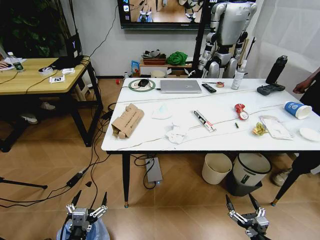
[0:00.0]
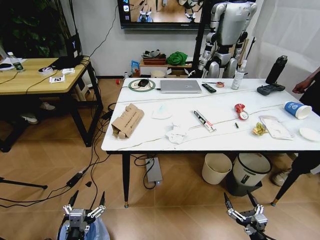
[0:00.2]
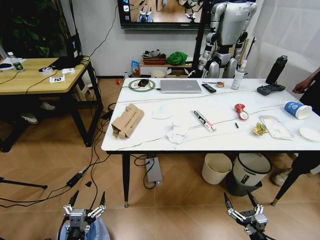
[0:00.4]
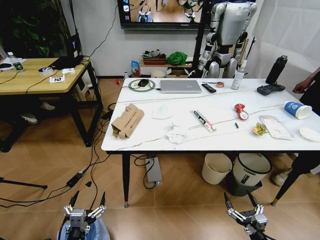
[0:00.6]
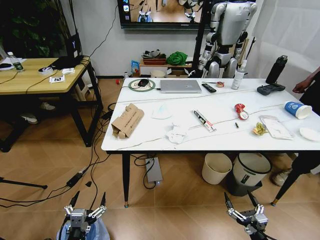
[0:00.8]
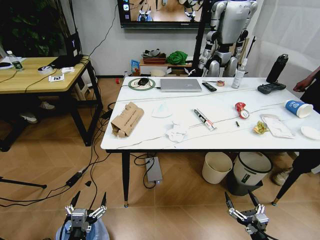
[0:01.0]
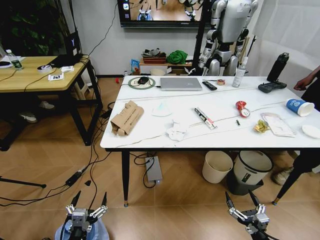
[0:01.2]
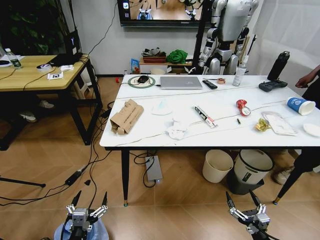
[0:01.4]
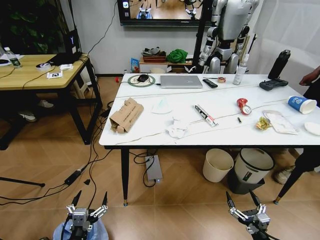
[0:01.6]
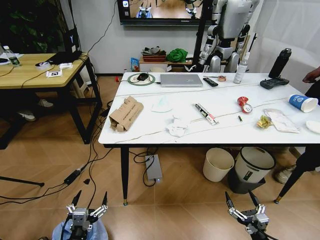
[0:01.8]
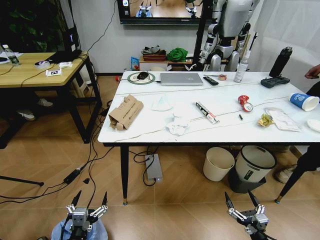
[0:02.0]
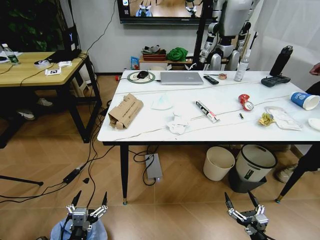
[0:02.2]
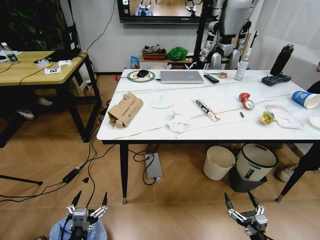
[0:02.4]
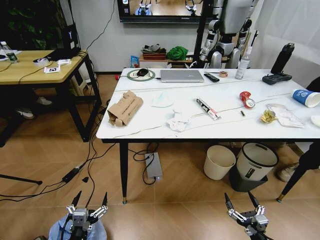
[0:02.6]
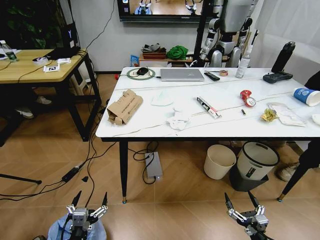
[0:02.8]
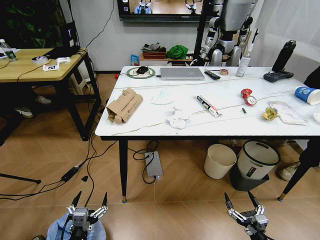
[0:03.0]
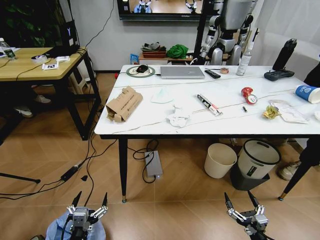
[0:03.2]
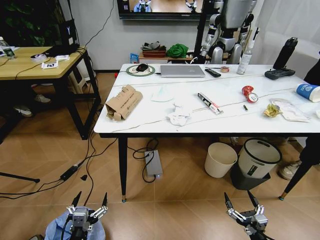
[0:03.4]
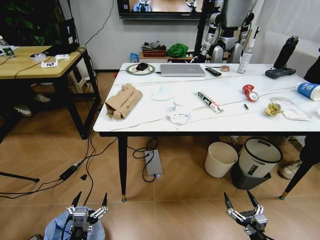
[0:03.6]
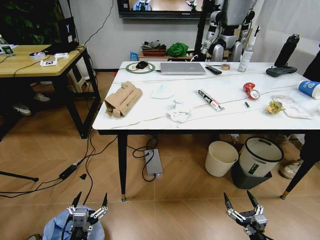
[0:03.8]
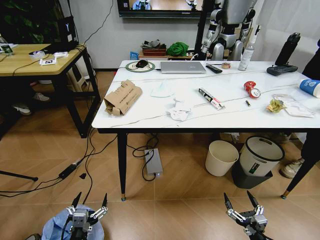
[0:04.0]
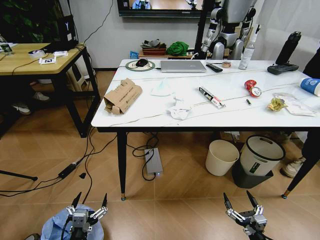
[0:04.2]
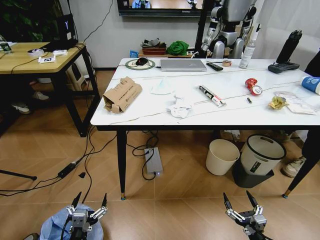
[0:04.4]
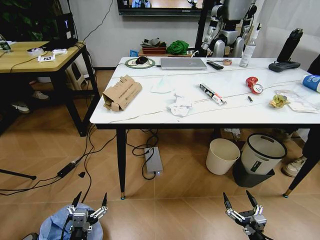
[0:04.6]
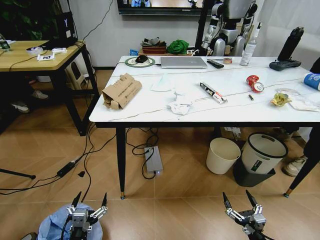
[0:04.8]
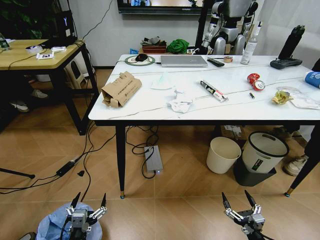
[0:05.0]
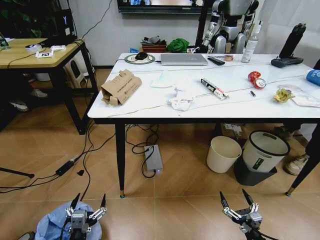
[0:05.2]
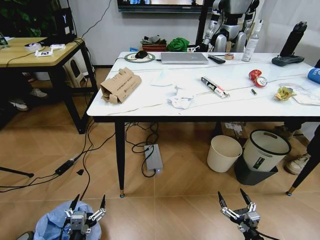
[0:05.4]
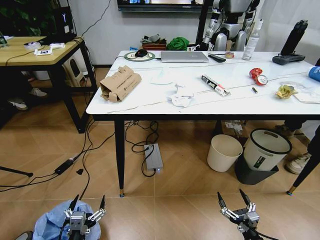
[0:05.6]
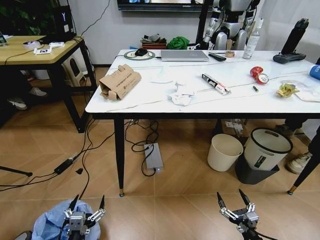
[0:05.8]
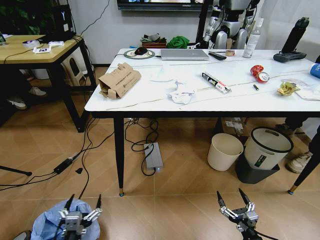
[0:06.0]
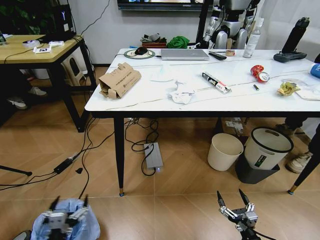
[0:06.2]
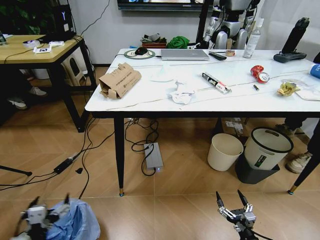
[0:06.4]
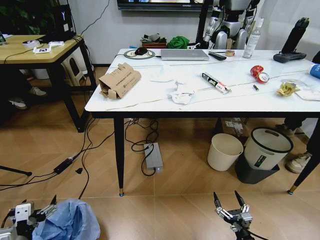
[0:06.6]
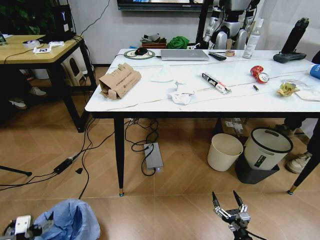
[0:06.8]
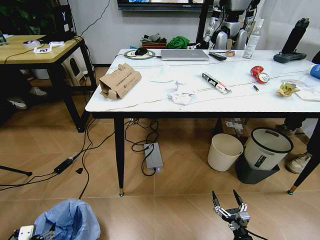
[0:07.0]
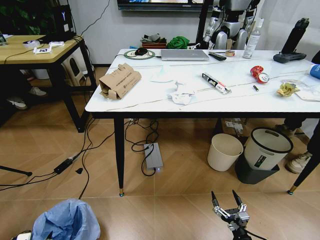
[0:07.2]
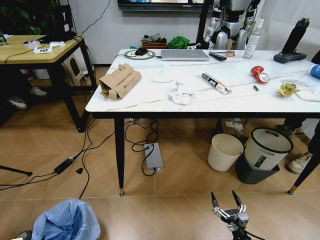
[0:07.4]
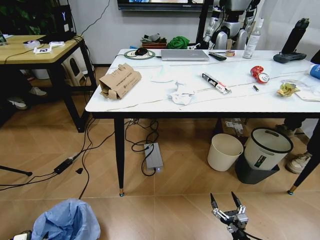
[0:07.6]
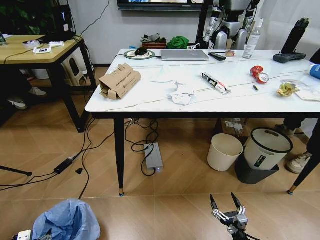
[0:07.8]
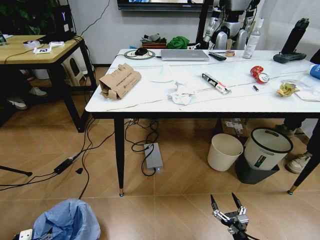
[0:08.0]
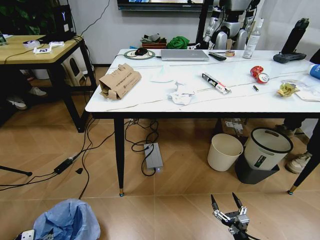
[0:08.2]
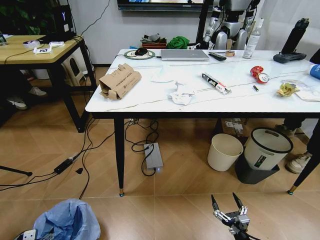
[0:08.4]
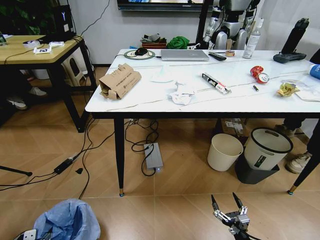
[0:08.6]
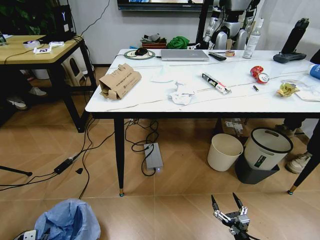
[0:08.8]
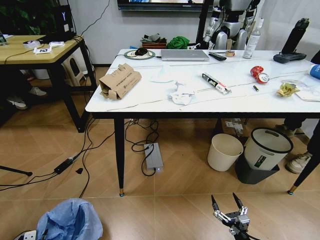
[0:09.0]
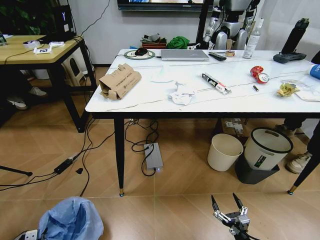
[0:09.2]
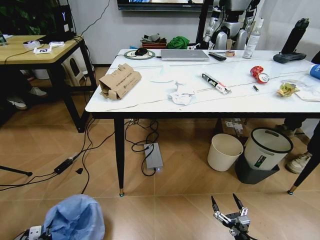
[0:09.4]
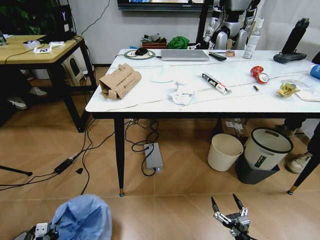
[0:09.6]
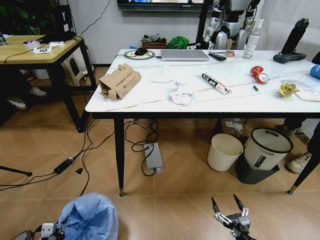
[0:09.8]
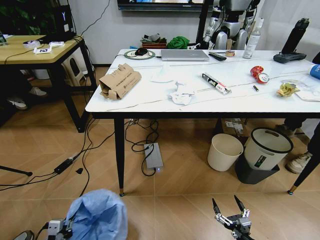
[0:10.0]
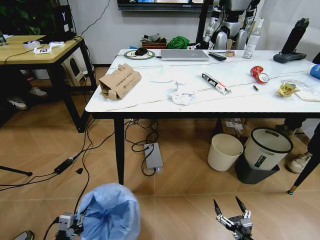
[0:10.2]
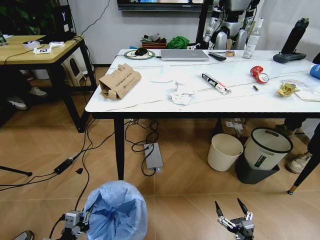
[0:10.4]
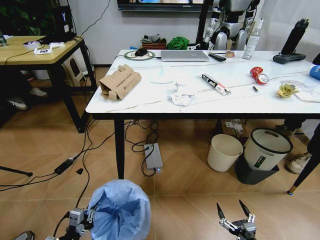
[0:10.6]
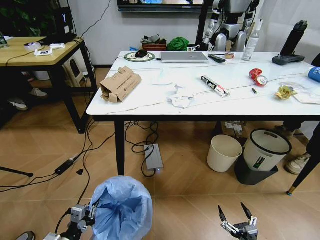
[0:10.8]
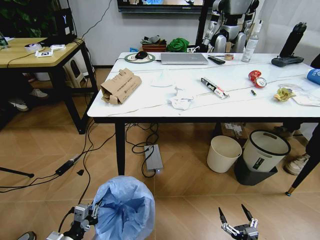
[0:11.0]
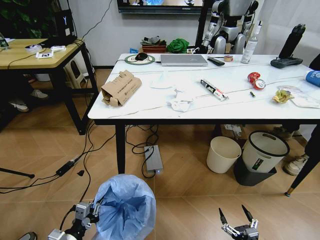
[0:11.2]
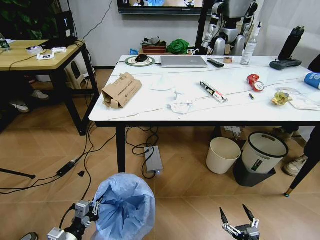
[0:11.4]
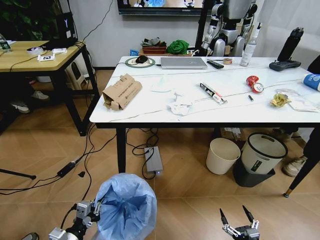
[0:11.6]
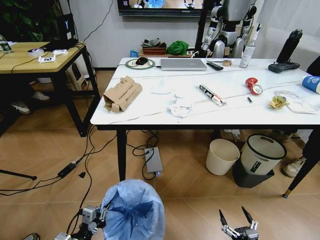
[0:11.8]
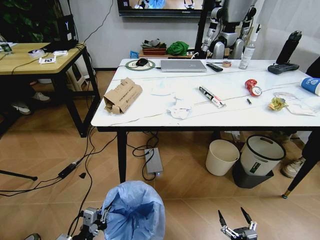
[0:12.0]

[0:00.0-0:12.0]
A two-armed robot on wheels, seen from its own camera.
Task of the whole recording: Pick up the trash bin and place the trash from the table into it.
0:06.0 to 0:07.6: The left gripper is displaced to the left by about 20 cm.
0:07.6 to 0:09.0: The left gripper travels downward by roughly 5 cm, and closes.
0:09.0 to 0:10.4: The left gripper goes roughly 15 cm to the right and upward.

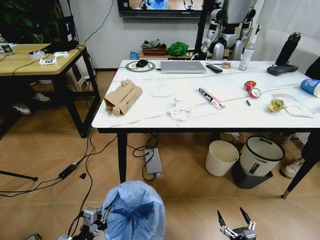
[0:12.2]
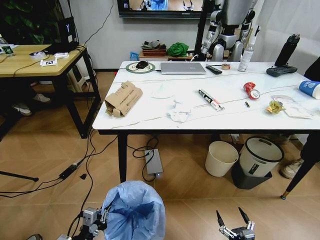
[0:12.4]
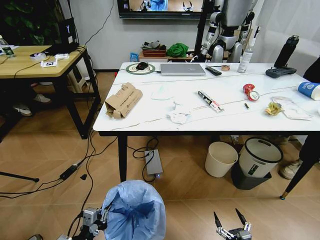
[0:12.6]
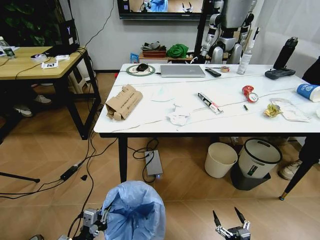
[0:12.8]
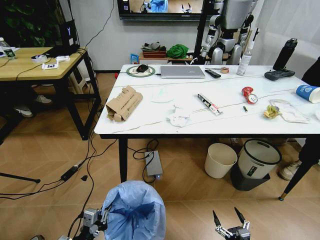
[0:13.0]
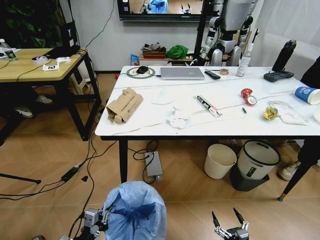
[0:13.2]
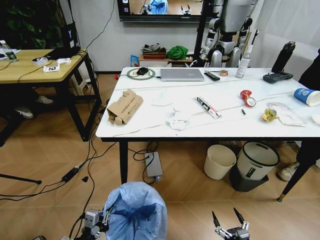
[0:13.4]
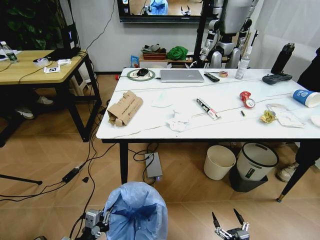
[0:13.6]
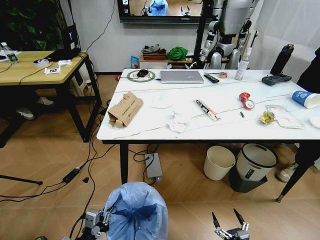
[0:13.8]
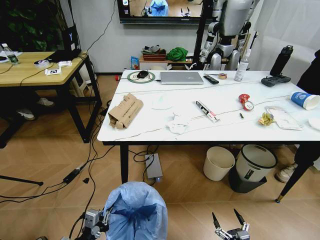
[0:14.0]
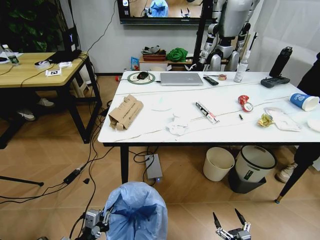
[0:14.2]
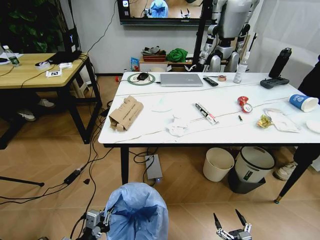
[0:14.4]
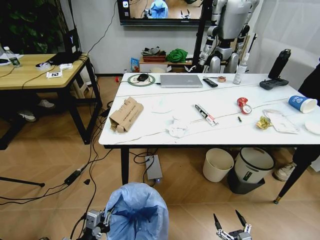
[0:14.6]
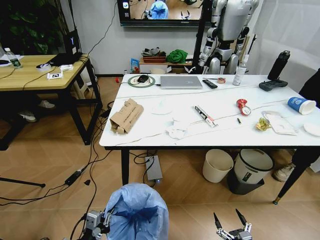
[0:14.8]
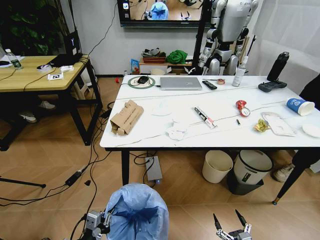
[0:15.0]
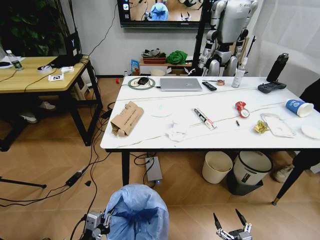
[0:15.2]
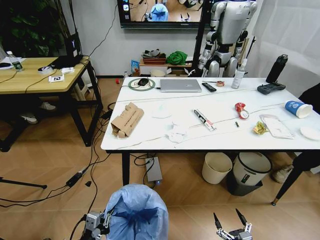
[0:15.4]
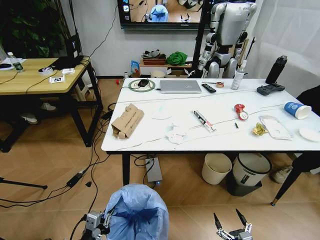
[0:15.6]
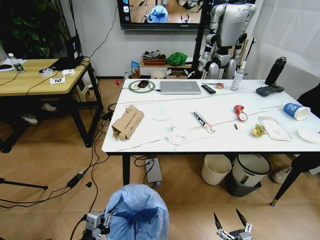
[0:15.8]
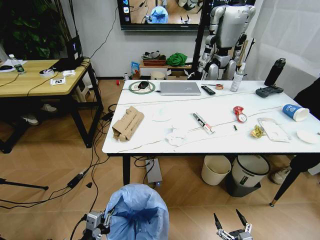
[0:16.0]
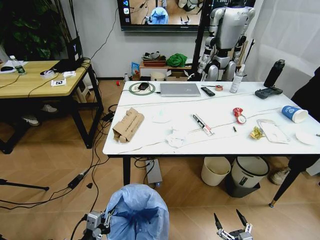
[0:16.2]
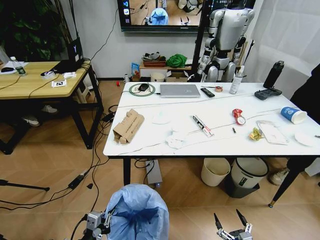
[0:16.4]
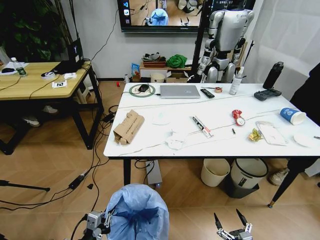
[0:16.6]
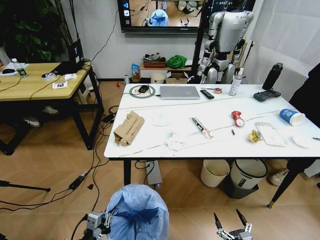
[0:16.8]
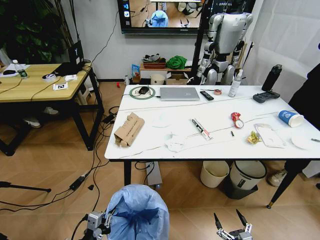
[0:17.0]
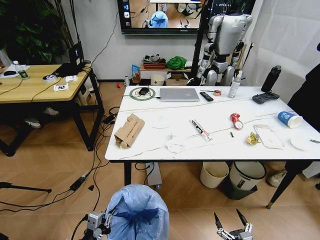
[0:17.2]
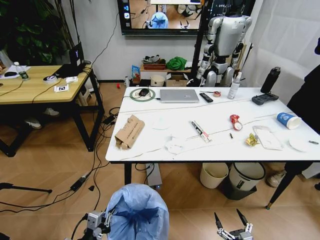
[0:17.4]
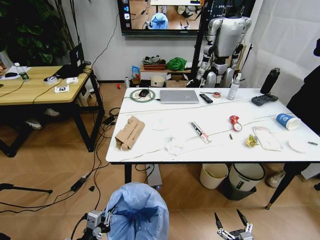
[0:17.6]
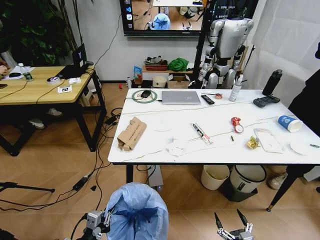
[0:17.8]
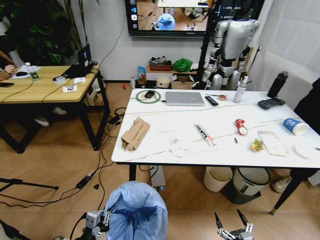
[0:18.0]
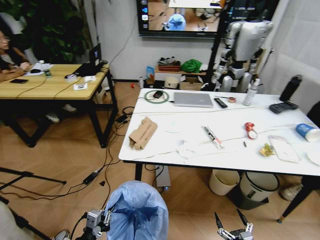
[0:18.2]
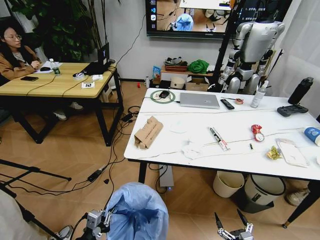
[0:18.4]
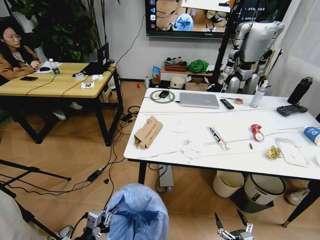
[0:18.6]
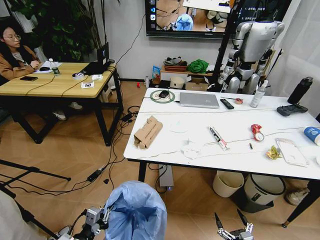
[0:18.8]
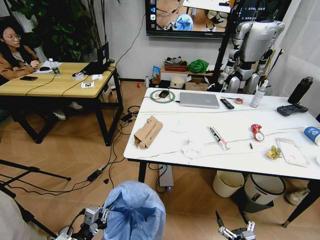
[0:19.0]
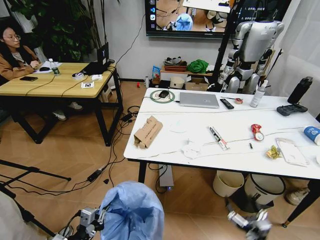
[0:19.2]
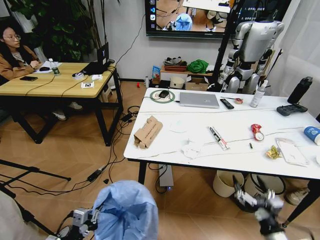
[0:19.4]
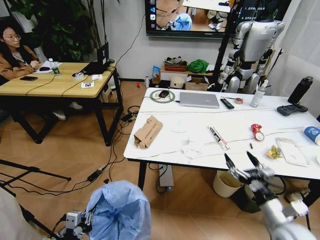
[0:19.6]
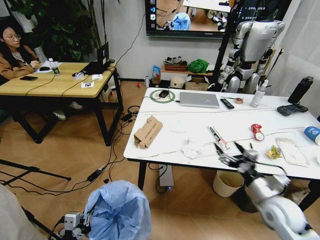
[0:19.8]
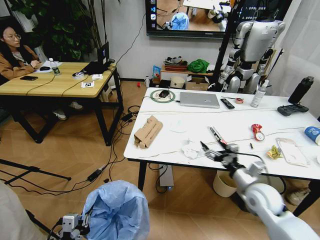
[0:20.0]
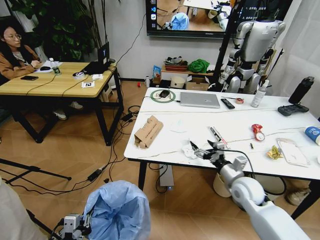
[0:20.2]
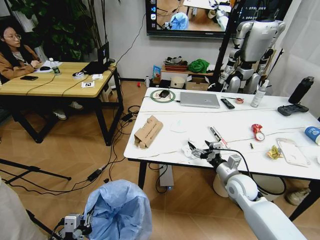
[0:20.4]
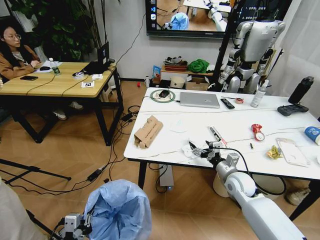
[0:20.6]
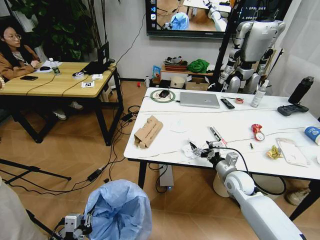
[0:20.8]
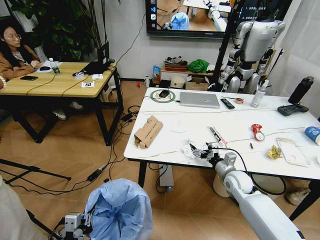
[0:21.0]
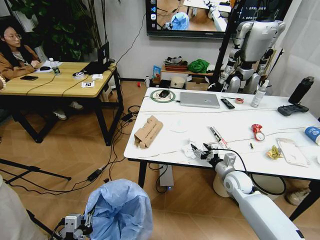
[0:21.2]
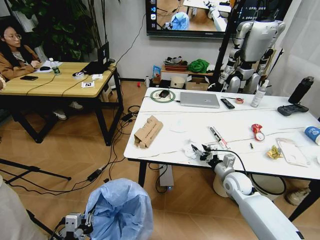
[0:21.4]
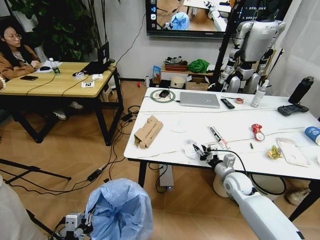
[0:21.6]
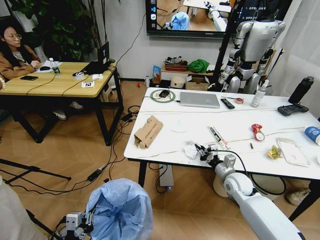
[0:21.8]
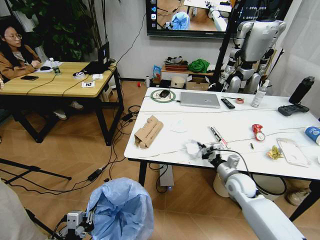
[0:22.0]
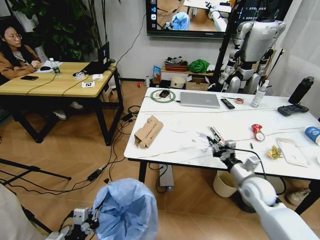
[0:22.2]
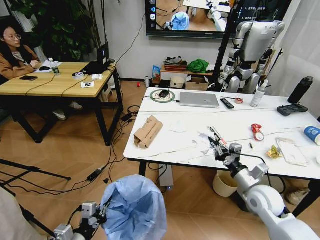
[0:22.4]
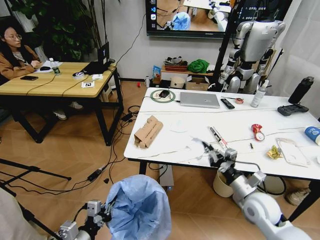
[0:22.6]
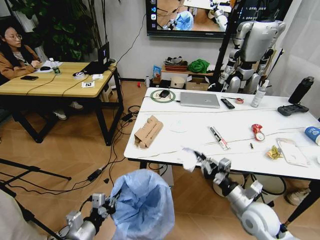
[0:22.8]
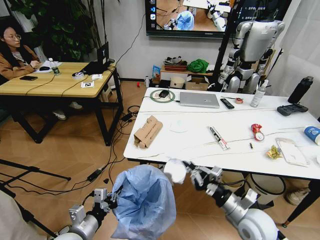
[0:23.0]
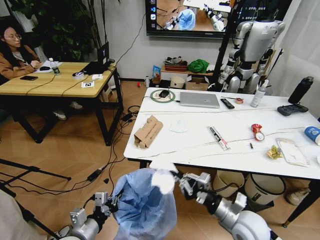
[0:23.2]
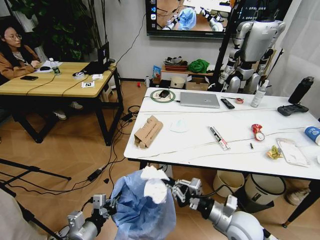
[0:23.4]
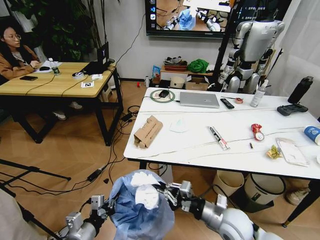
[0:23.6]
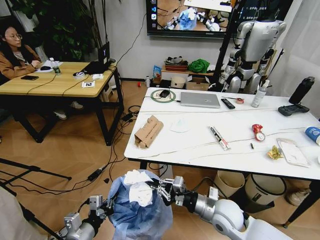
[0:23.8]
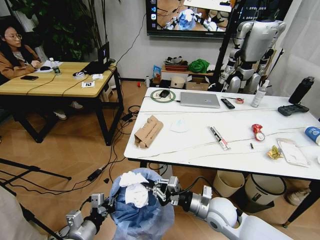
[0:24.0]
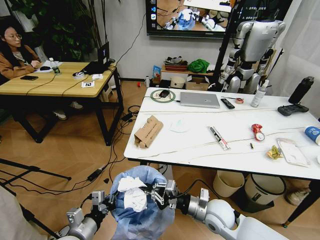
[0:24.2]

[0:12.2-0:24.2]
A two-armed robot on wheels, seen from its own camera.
Task of the whole recording: Pick up the trash bin and place the trash from the table into it.
0:18.2 to 0:19.8: The right gripper heads upward and forward, covering roughly 30 cm.
0:19.8 to 0:21.2: The right gripper shifts some 15 cm forward, downward and to the left.
0:21.2 to 0:22.6: The left gripper moves forward, some 5 cm. Meanwhile the right gripper shifts roughly 10 cm backward and upward, and closes up.
0:22.6 to 0:24.2: The right gripper goes approximately 15 cm to the left.
